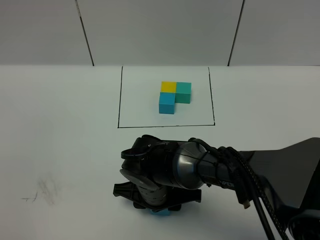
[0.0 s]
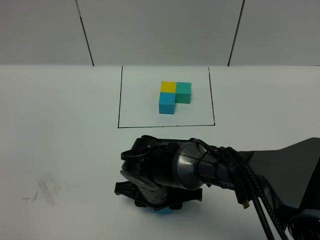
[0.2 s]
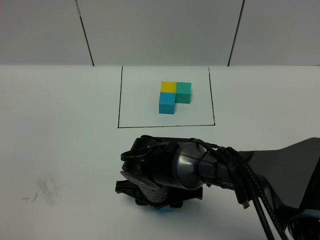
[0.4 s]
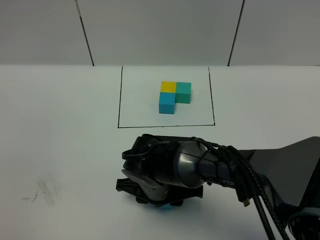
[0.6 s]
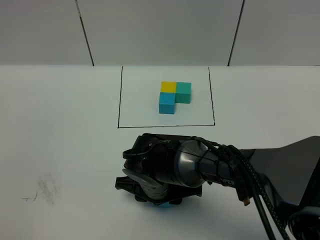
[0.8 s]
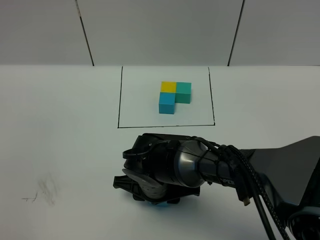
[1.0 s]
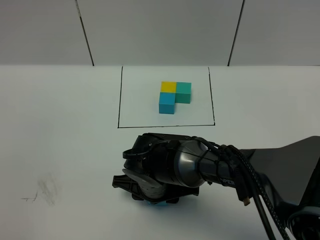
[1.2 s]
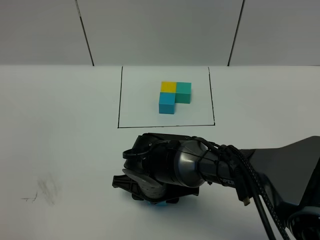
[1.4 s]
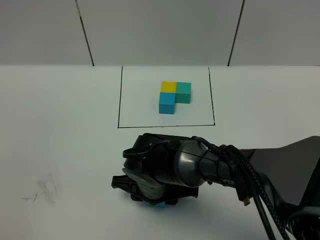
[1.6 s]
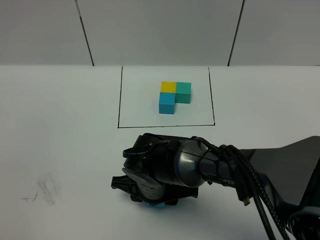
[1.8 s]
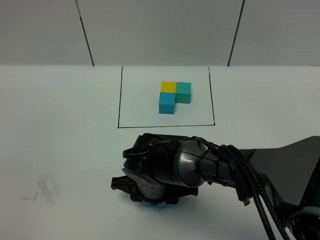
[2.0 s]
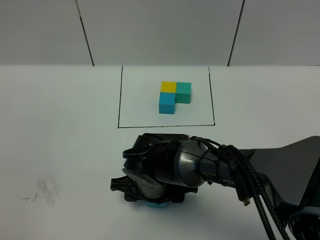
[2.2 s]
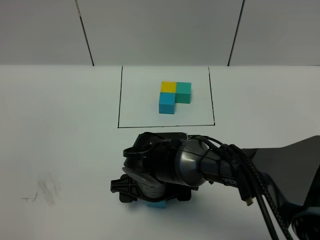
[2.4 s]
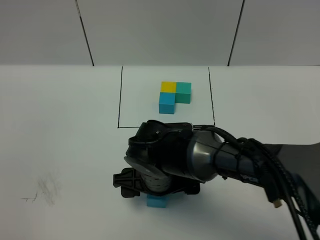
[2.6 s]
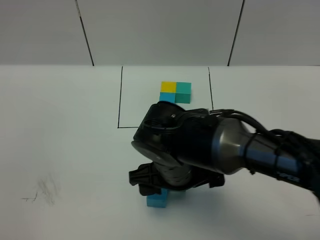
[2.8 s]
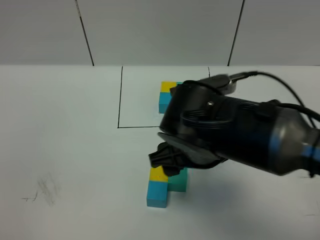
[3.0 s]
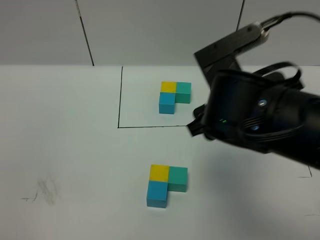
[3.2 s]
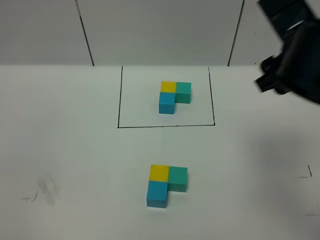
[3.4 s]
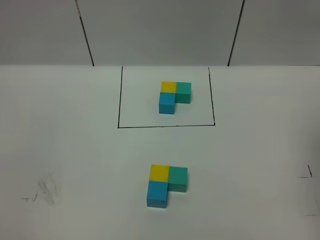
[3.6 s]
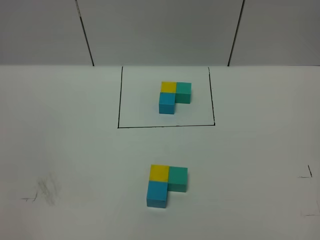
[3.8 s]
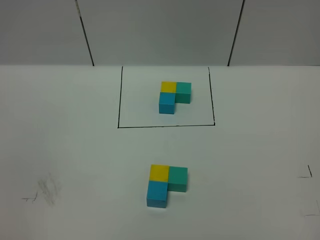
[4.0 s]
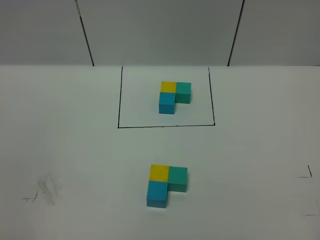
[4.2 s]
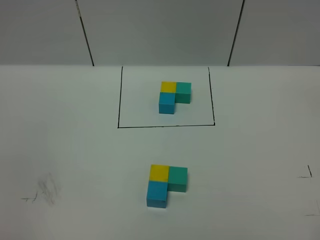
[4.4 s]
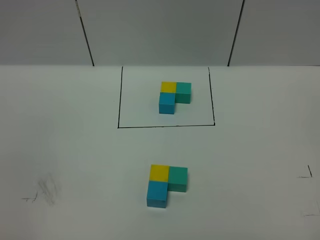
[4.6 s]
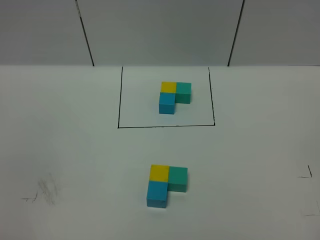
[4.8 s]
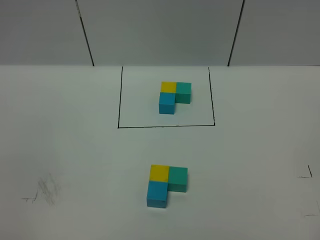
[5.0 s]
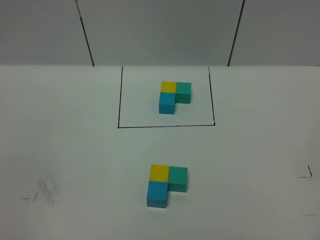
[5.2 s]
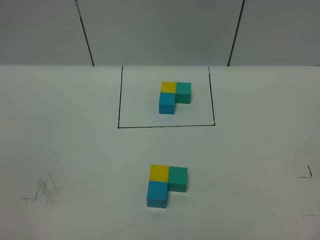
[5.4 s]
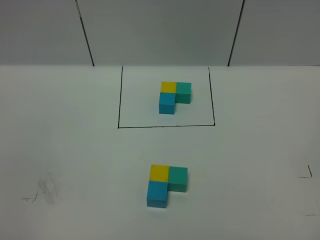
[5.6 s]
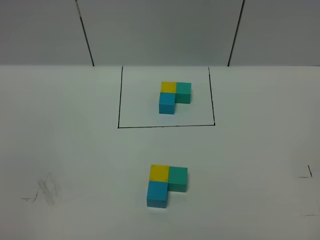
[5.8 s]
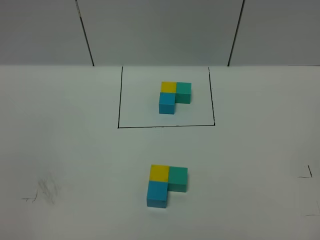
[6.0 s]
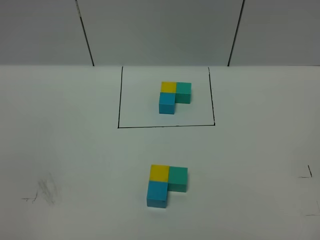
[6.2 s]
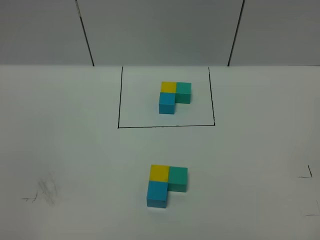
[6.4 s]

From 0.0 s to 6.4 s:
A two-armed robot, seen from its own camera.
Task of the whole recording: According to the building block template in front, assemble the scattered blocks together.
Step, from 0.0 s to 2.6 s: Put the blue cube in the front of the yellow cube.
From 0.0 s to 1.6 s: Both grippers stay put.
From 1.6 s to 3.2 s: The right gripper moves upward and to the right, some 25 cm, and opens.
From 3.2 s to 4.8 s: The right gripper is displaced backward and to the right by about 35 cm.

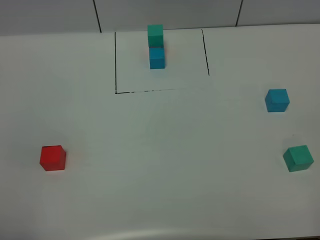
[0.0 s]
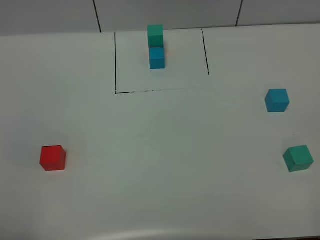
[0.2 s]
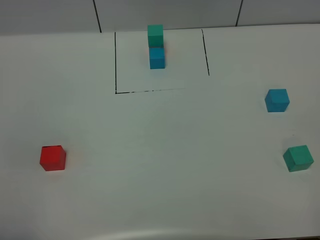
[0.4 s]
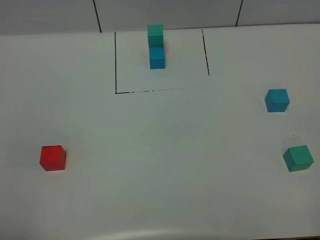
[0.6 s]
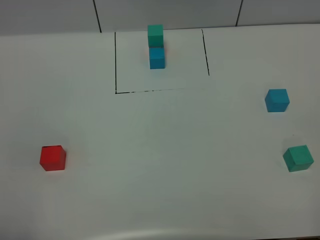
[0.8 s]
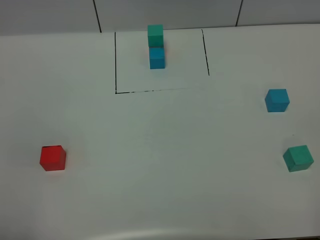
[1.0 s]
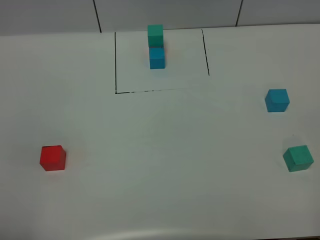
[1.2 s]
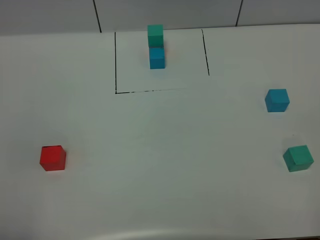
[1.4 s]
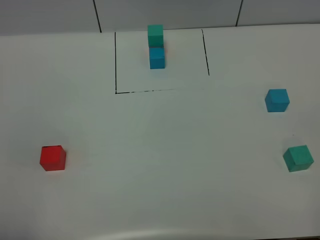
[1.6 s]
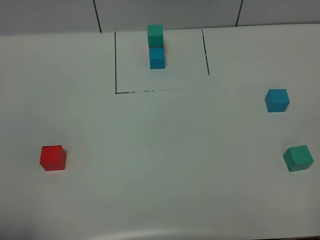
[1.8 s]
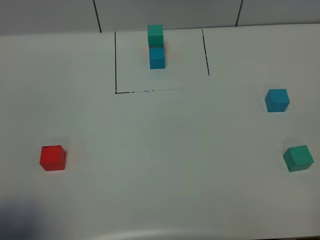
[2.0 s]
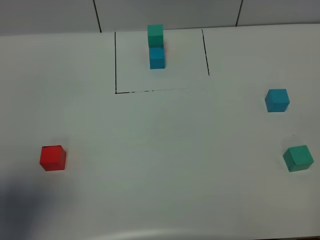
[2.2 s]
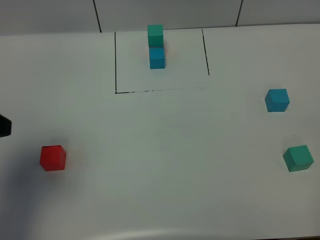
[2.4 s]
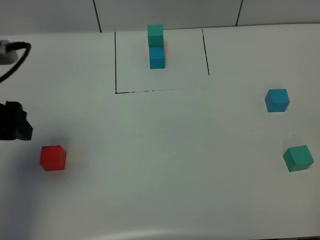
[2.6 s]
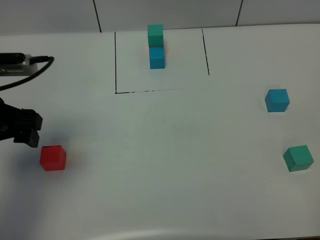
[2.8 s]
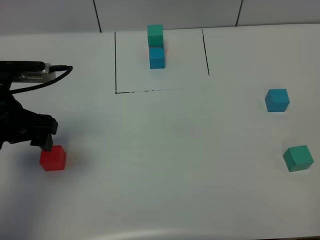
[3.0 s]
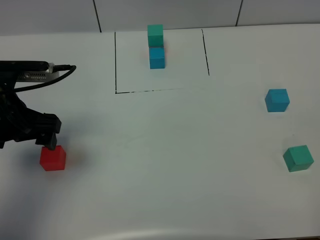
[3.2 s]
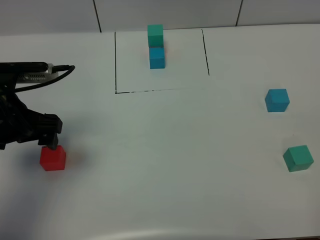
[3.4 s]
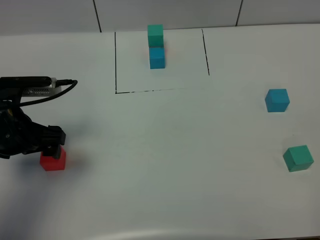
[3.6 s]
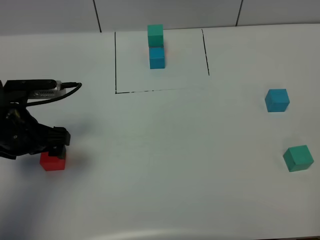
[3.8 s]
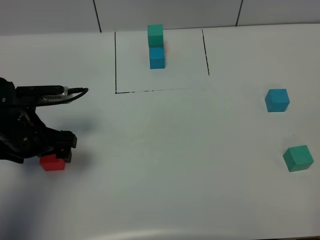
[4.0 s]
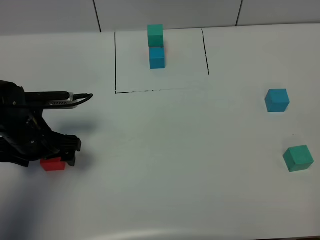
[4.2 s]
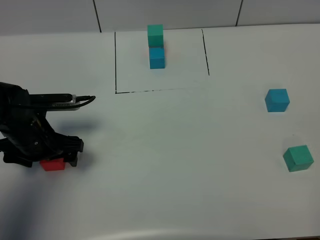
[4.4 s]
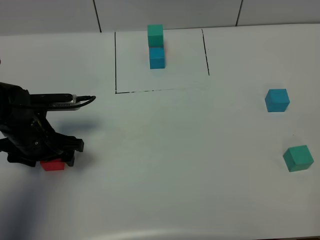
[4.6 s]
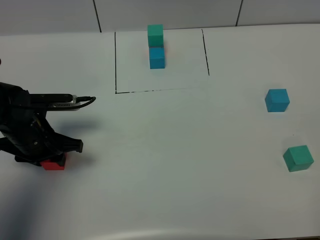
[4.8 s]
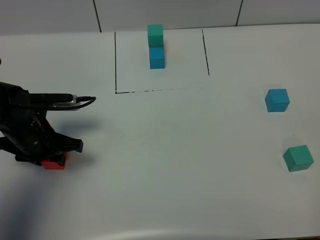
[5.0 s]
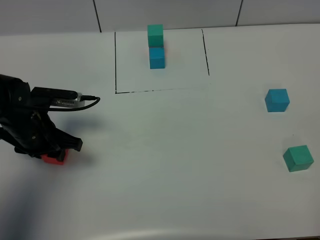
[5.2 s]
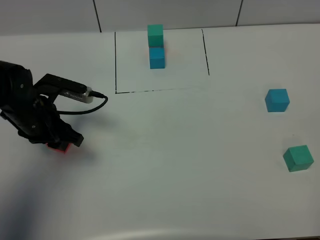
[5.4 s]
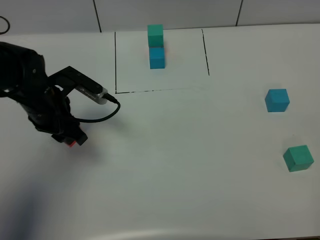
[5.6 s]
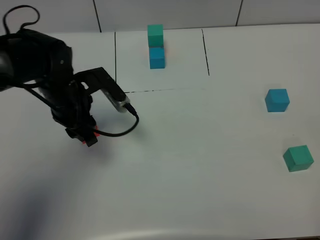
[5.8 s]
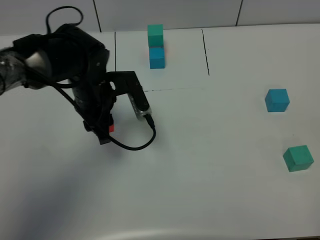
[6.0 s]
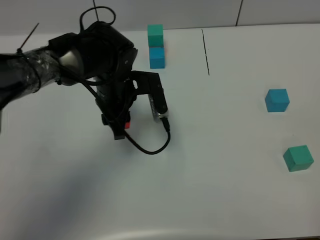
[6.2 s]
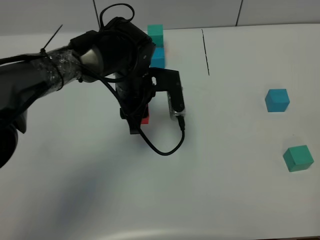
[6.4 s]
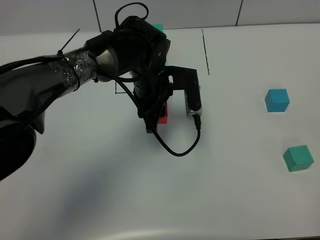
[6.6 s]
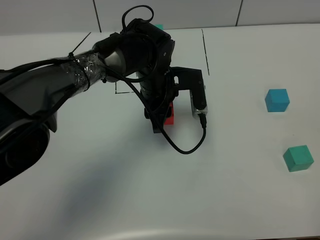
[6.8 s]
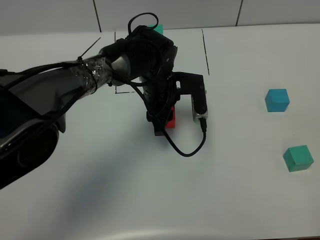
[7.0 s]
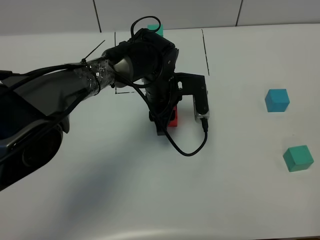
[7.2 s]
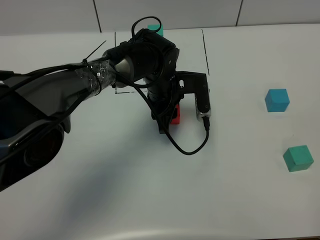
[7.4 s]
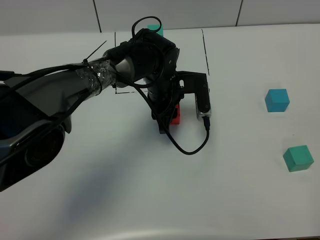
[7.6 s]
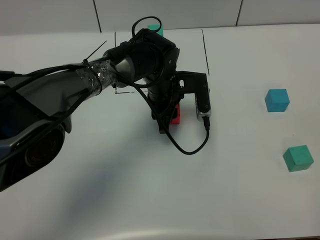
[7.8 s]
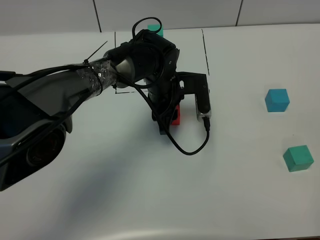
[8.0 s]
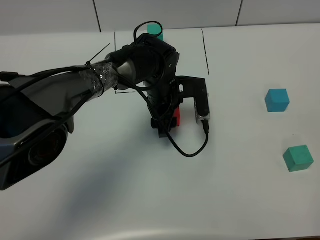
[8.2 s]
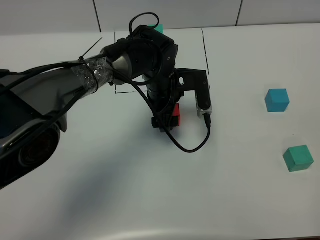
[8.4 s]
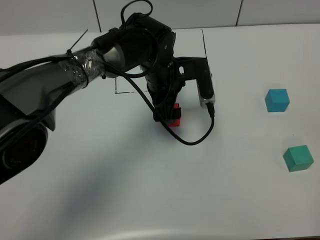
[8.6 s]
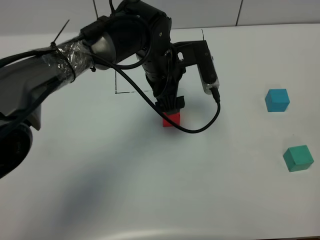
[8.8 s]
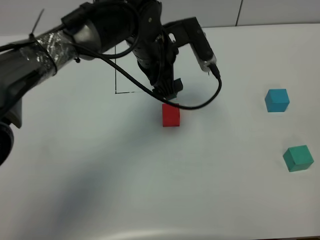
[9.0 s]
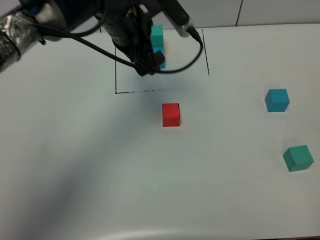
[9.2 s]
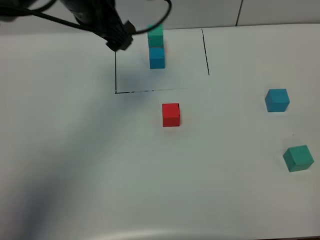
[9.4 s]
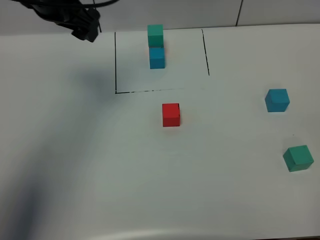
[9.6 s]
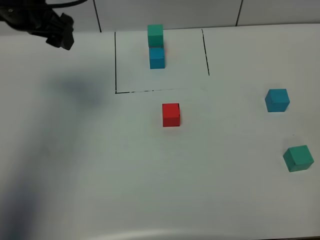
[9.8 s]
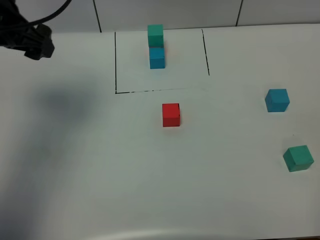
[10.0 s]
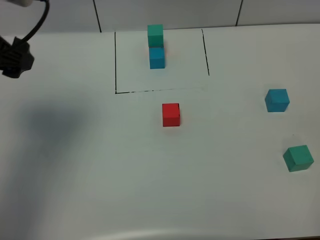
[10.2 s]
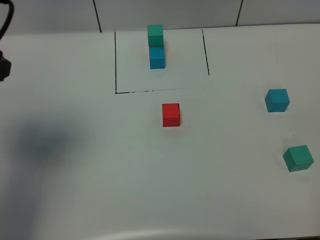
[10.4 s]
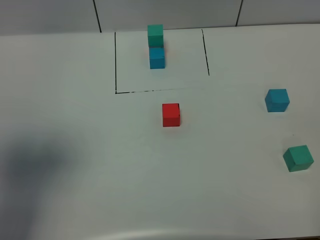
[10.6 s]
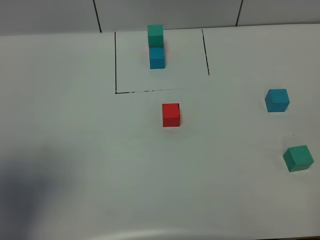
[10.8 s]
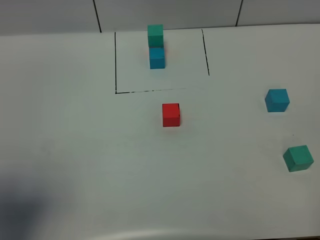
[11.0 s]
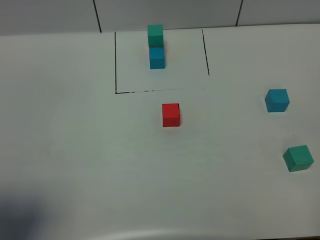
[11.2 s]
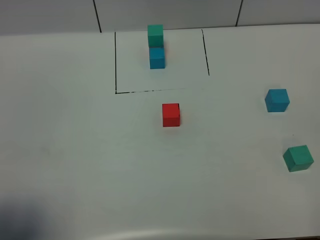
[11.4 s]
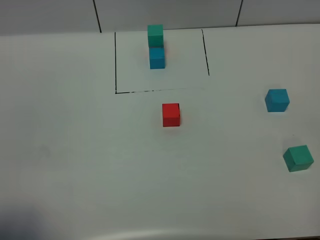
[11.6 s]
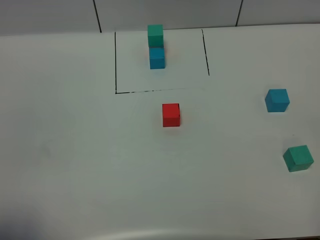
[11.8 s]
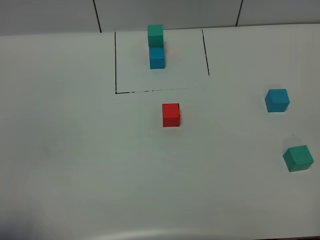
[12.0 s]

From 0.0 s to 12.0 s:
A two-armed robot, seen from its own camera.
Task of the whole recording: According to the building block template in front, assemble the scattered blocks together.
Step, from 2.4 s to 9.0 s: Put the red cube in the center of the table.
From 0.0 s to 1.6 s: The two grippers keep their place.
From 1.6 s to 3.0 s: The left gripper heads forward, covering approximately 25 cm.
From 3.0 s to 4.4 s: The left gripper heads downward, covering roughly 10 cm.
From 4.4 s to 6.0 s: The left gripper is displaced to the right and forward by roughly 15 cm, and closes up.
From 6.0 s to 7.6 s: The left gripper moves to the right, approximately 10 cm.
From 7.6 s to 9.0 s: The left gripper moves upward, about 10 cm, and opens.
From 9.0 s to 10.4 s: The left gripper goes about 35 cm to the left, backward and upward.
From 10.4 s to 12.0 s: The left gripper moves backward, about 20 cm.

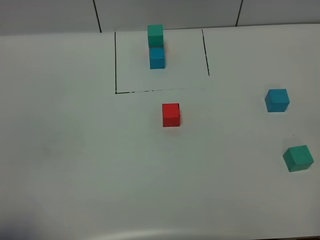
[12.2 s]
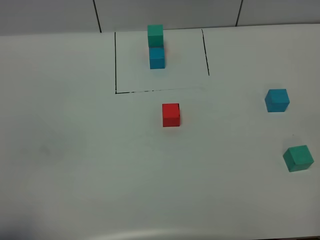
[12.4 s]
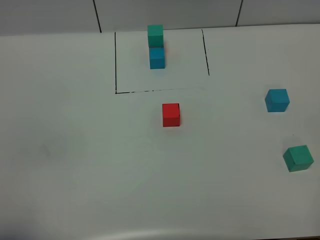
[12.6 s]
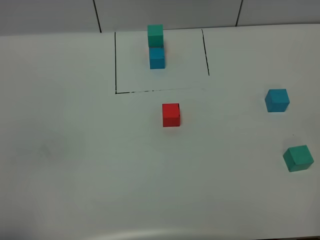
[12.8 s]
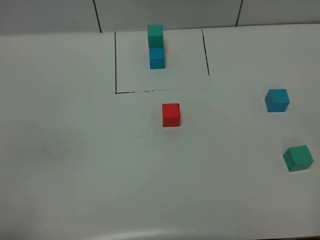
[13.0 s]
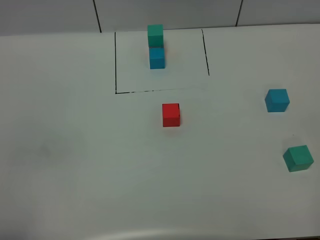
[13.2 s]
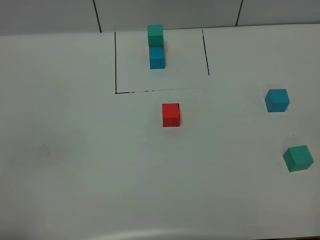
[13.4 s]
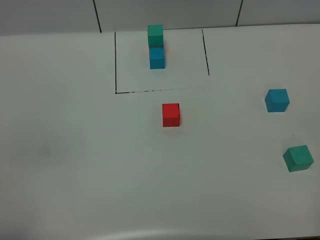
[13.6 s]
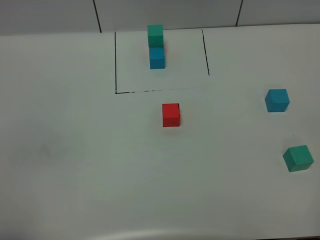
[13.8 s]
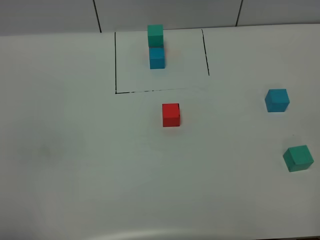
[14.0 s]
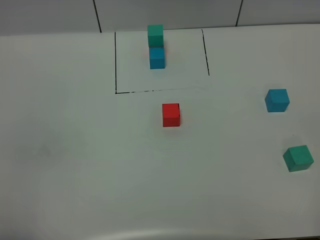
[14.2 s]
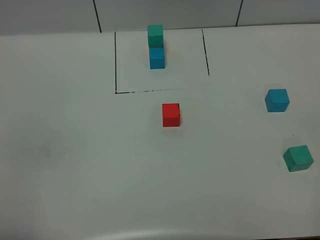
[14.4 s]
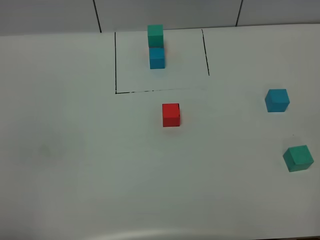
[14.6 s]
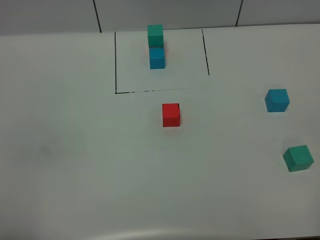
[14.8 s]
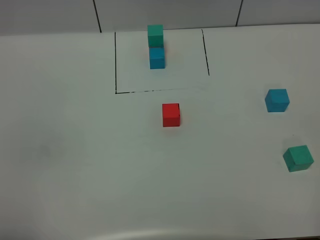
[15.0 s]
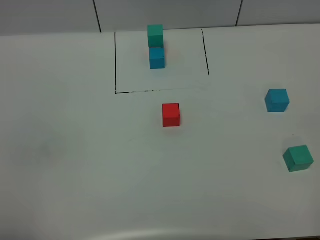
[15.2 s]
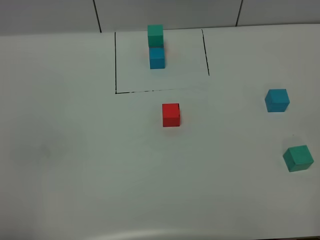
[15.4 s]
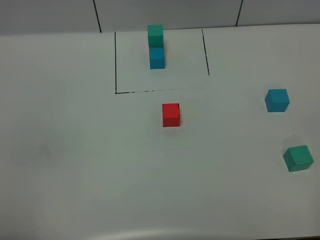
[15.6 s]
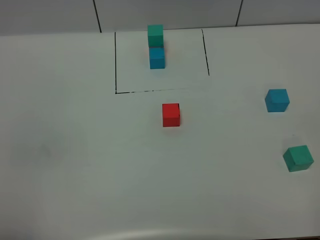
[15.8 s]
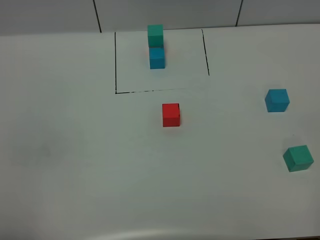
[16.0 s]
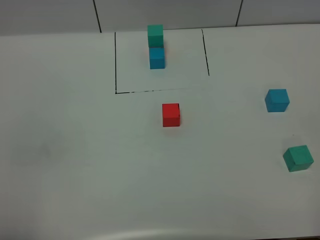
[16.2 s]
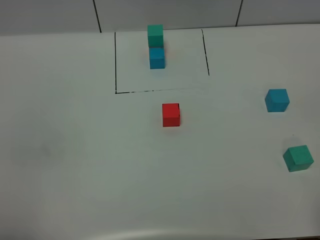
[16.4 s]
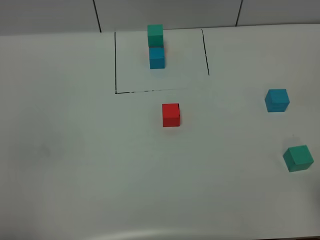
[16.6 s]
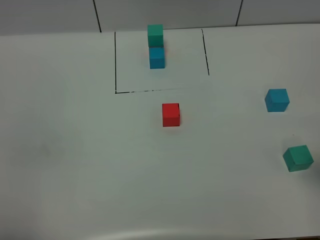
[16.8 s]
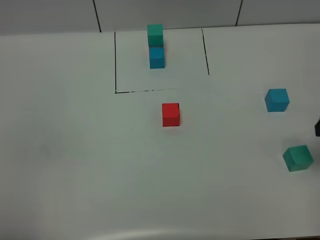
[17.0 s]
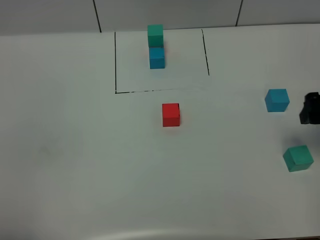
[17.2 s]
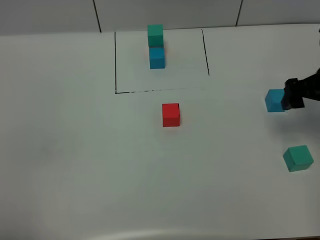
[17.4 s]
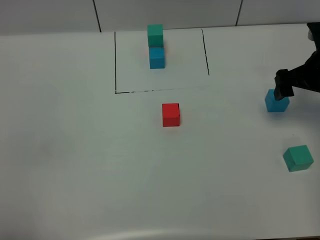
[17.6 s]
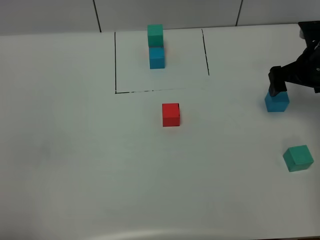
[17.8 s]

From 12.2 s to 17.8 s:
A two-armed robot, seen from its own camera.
Task of the whole recording: According to the building block template in front, assemble the scattered blocks together.
From 16.4 s to 17.8 s: The right gripper goes about 35 cm forward.
